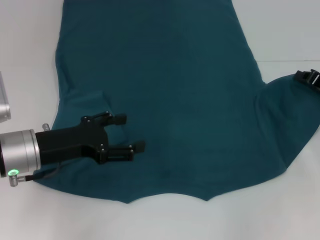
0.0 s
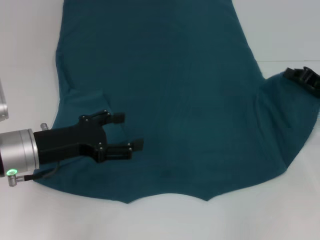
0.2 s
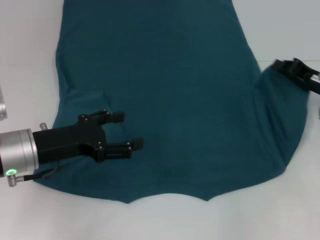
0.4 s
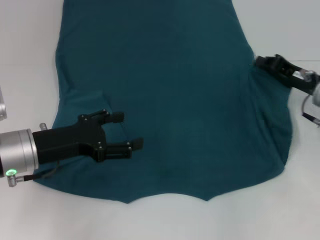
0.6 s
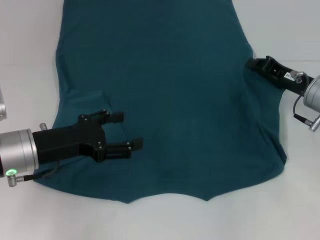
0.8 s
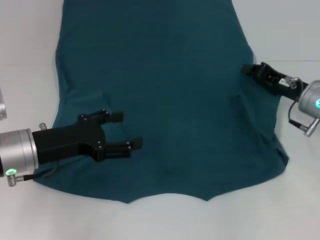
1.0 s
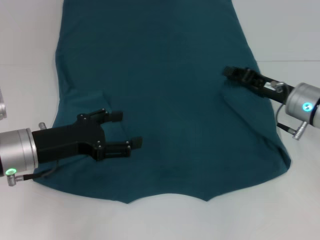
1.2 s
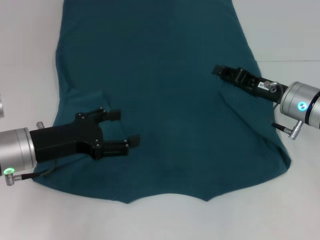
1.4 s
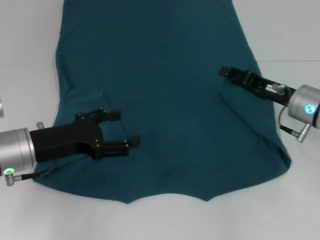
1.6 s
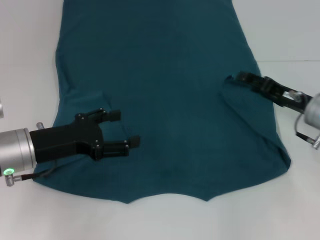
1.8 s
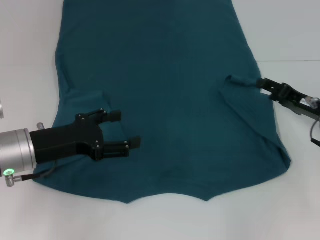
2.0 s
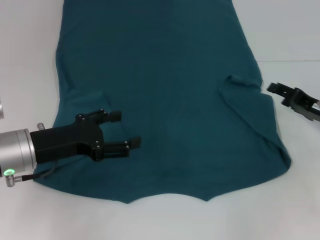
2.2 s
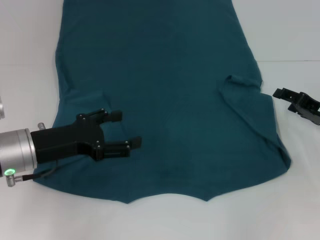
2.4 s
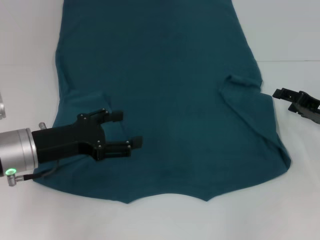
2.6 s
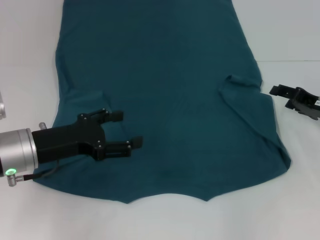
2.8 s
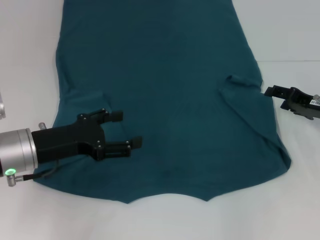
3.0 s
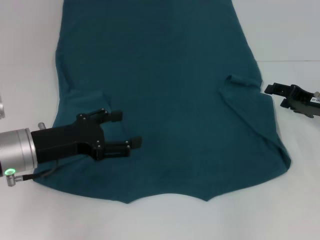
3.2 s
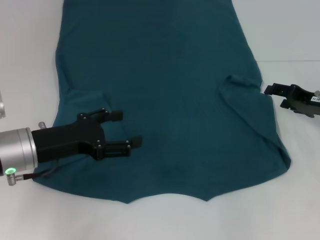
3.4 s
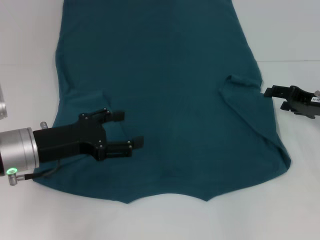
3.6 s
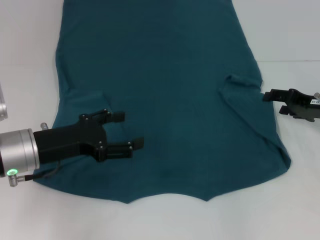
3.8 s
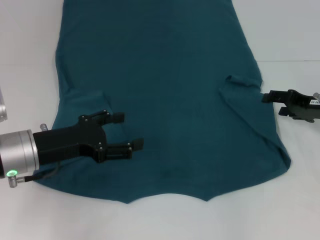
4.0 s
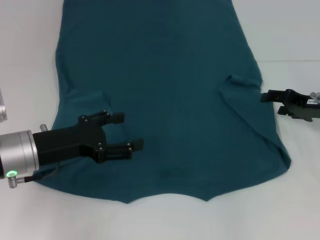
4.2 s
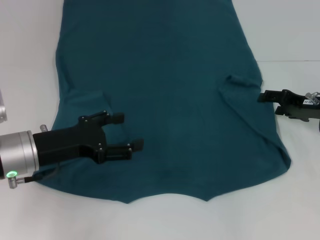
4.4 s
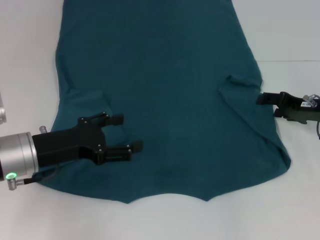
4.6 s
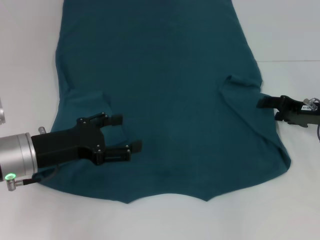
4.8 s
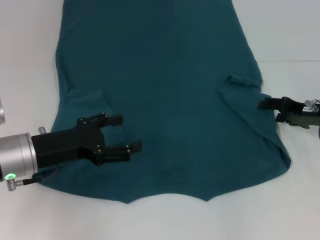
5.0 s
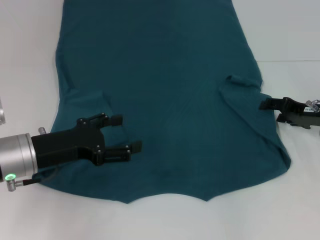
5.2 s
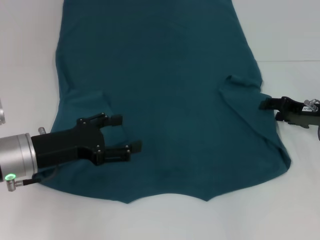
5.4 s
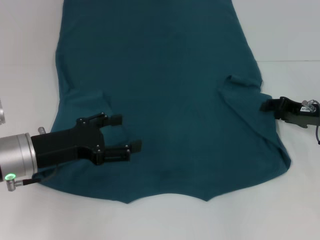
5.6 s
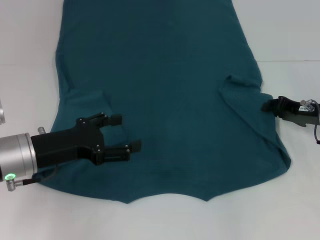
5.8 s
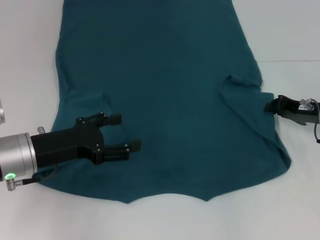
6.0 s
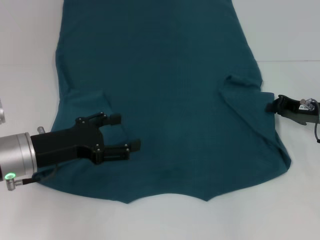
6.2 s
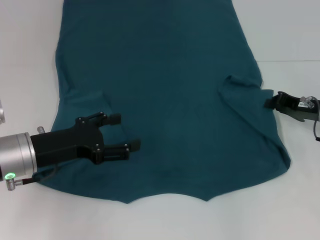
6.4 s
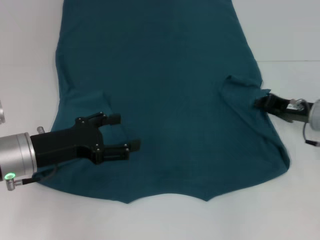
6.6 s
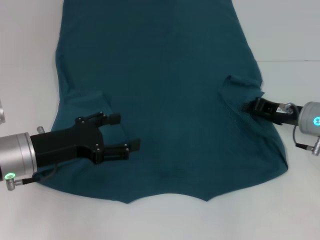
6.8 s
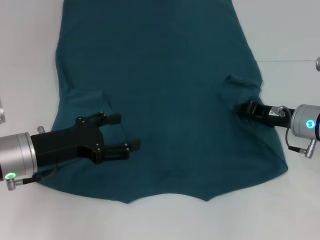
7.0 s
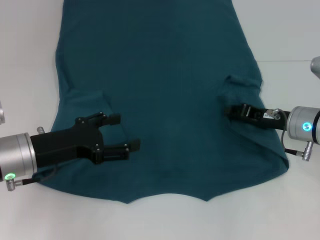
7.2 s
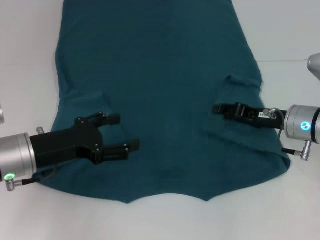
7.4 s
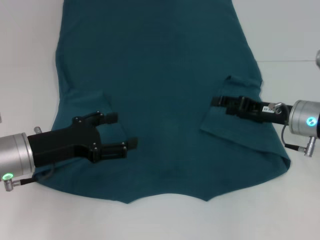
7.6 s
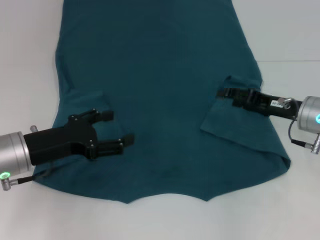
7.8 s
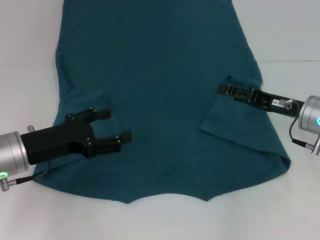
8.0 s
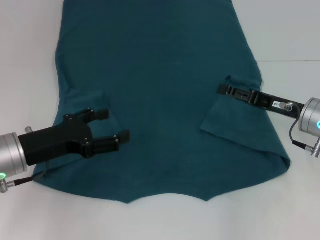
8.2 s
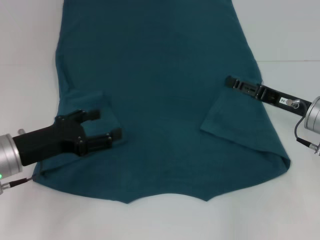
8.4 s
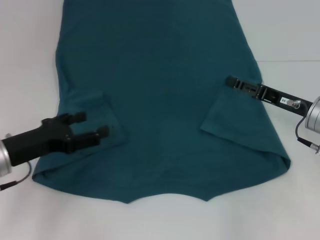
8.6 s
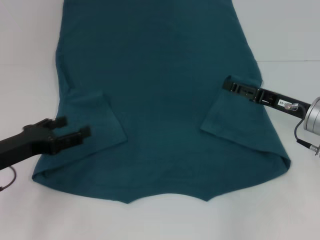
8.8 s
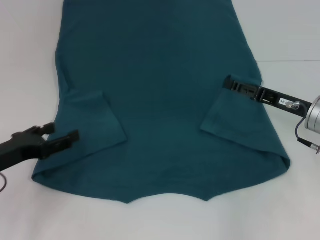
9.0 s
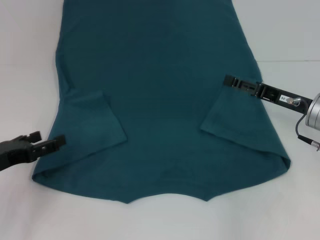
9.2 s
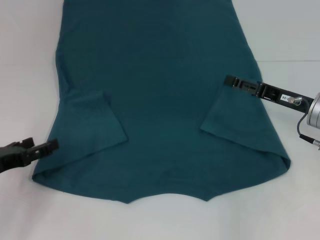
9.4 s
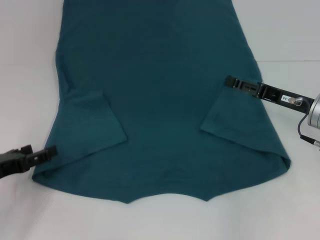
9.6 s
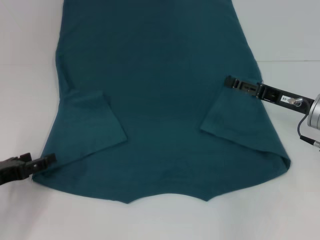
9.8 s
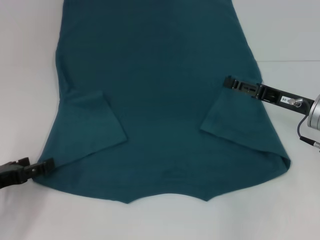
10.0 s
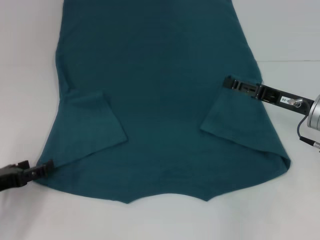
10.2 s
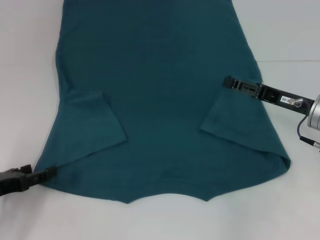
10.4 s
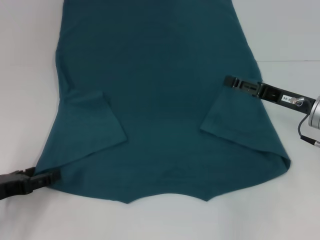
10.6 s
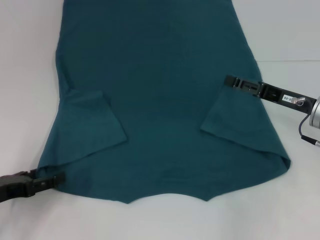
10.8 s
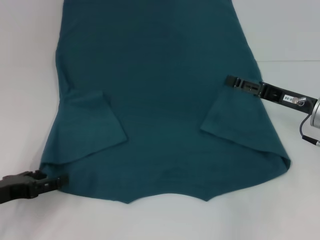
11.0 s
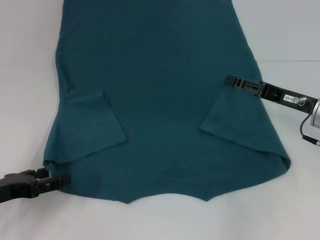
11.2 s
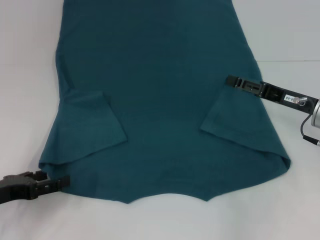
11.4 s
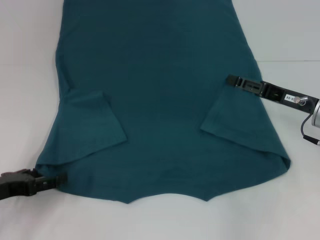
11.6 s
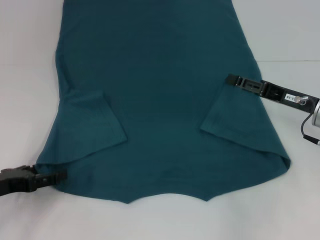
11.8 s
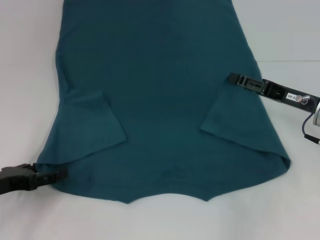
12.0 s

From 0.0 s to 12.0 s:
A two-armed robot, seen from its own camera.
Step, from 0.0 s to 8.0 s: Fold the bottom right sleeve to the right.
From 0.0 s to 1.6 s: The right gripper goes about 10 cm to the left, and opens up.
From 1.6 s to 3.0 s: The right gripper heads to the right, covering approximately 5 cm, and opens up.
From 3.0 s to 4.4 s: The grippers move only a little.
From 4.4 s to 6.0 s: The right gripper closes.
From 6.0 s to 7.6 s: The right gripper travels to the left by approximately 5 cm.
From 7.6 s to 9.0 s: The left gripper goes roughly 5 cm to the left. Meanwhile the right gripper opens.
From 9.0 s to 12.0 s: The grippers move only a little.

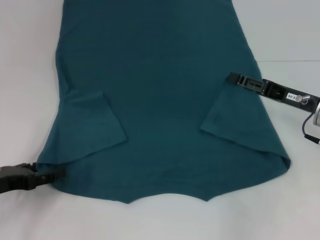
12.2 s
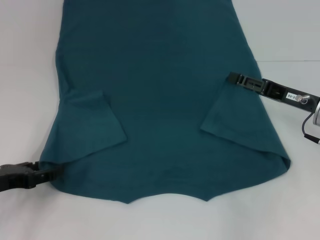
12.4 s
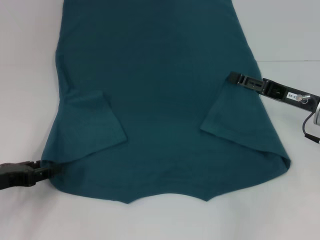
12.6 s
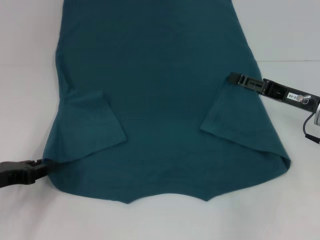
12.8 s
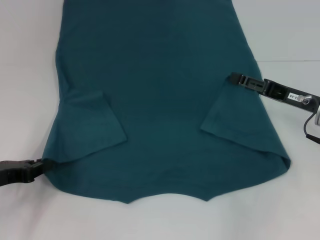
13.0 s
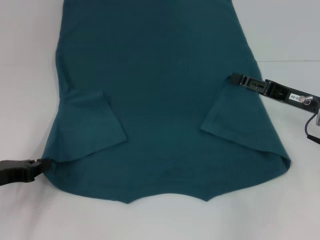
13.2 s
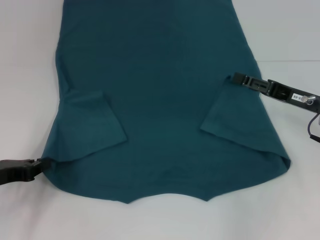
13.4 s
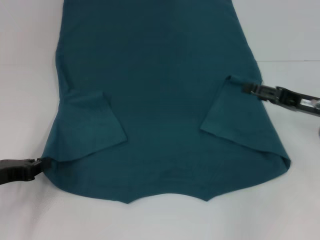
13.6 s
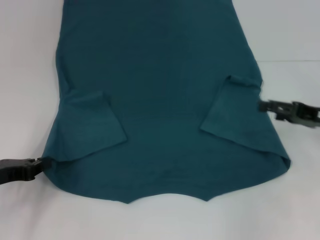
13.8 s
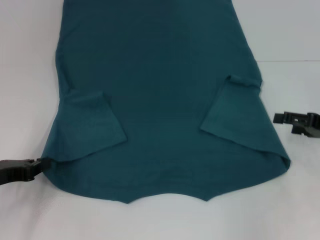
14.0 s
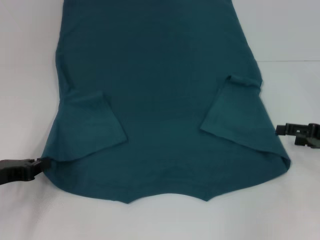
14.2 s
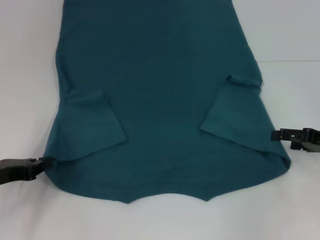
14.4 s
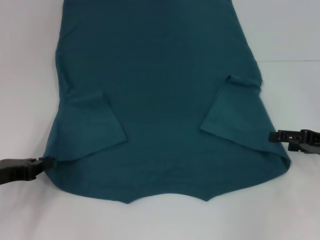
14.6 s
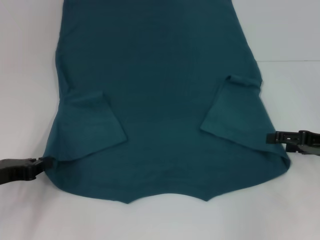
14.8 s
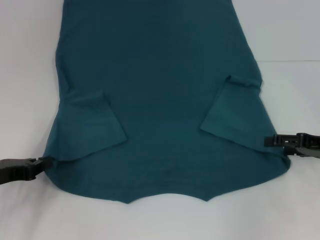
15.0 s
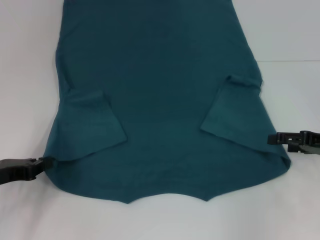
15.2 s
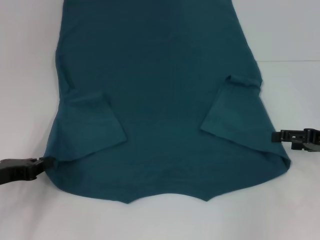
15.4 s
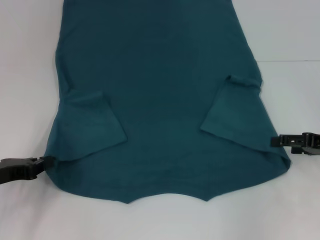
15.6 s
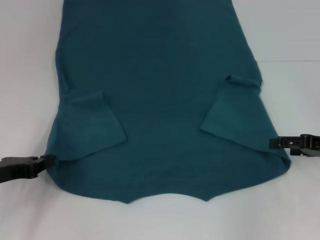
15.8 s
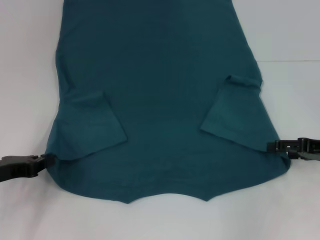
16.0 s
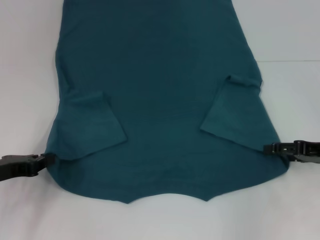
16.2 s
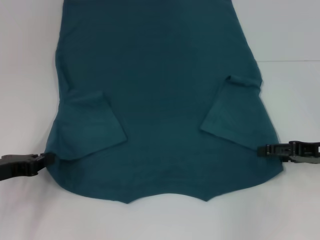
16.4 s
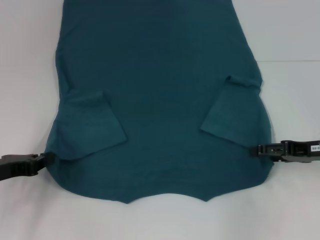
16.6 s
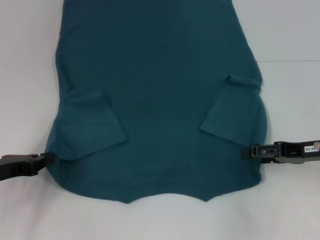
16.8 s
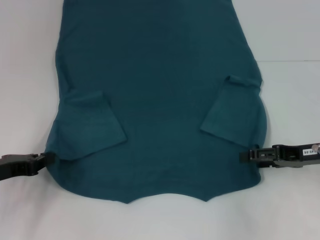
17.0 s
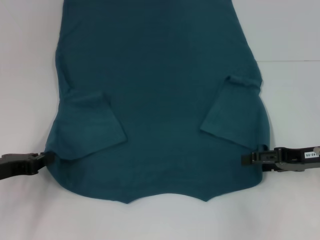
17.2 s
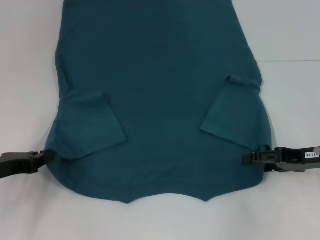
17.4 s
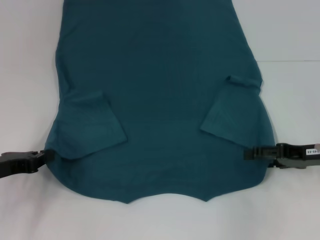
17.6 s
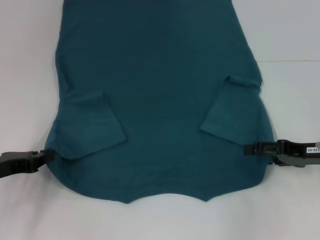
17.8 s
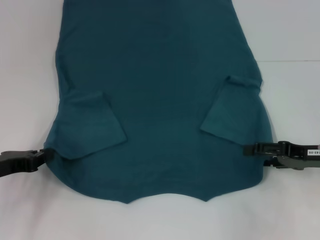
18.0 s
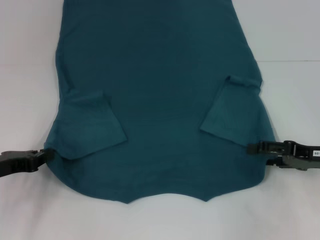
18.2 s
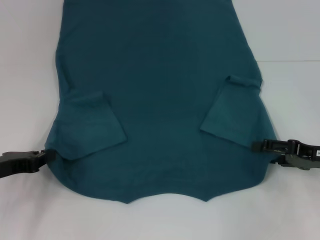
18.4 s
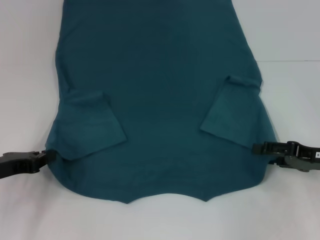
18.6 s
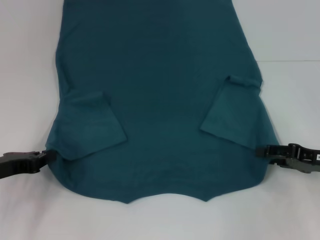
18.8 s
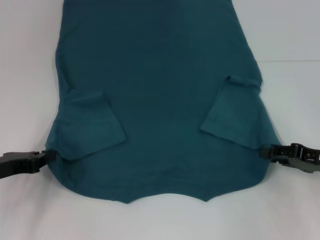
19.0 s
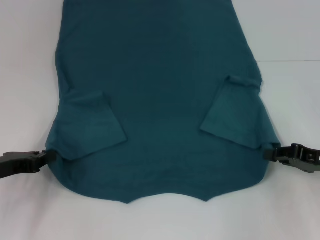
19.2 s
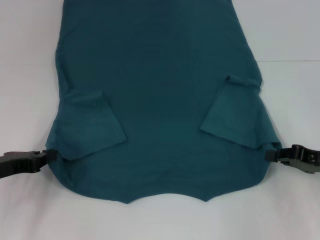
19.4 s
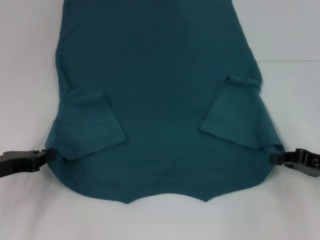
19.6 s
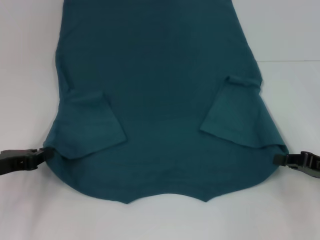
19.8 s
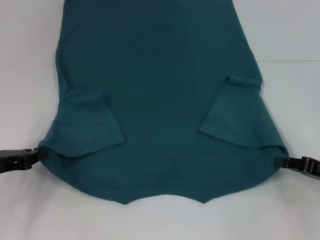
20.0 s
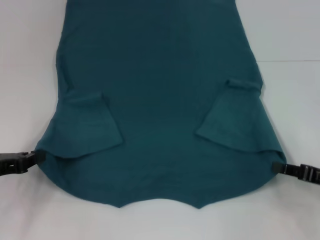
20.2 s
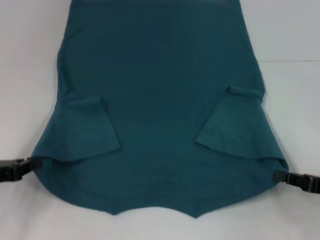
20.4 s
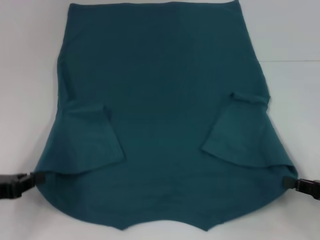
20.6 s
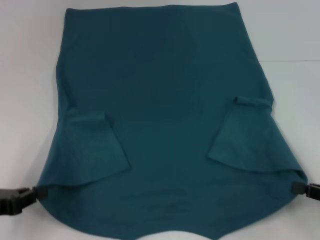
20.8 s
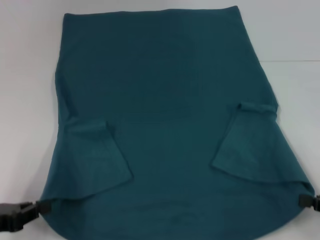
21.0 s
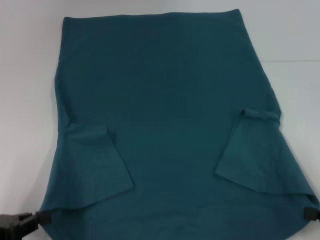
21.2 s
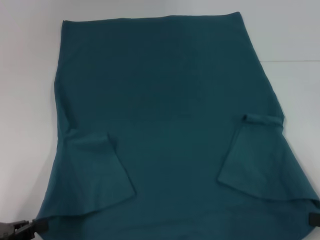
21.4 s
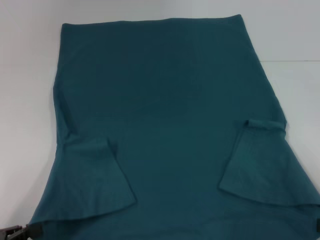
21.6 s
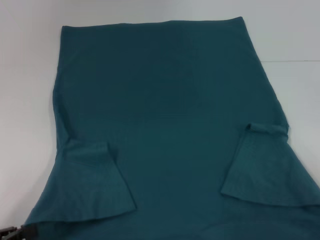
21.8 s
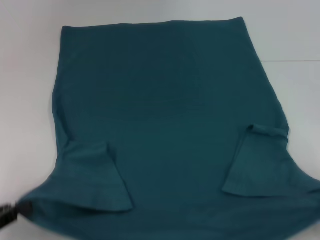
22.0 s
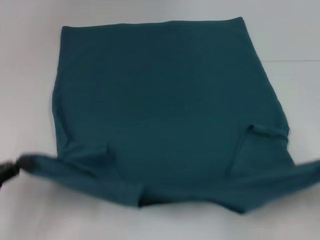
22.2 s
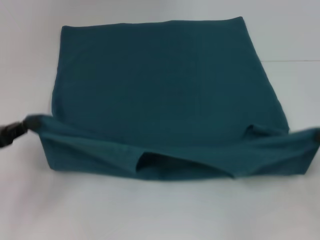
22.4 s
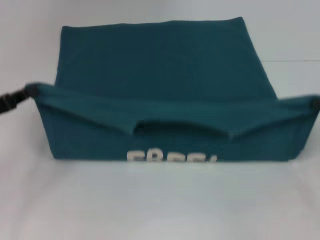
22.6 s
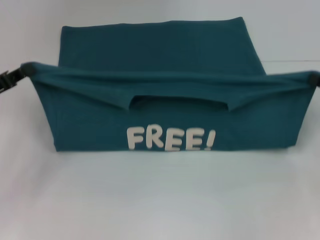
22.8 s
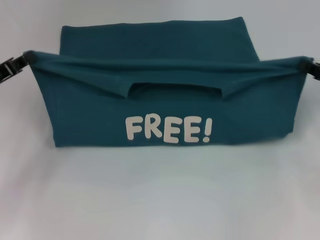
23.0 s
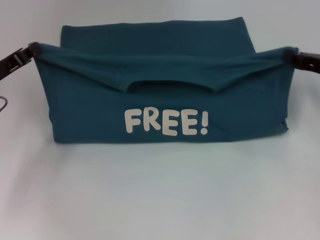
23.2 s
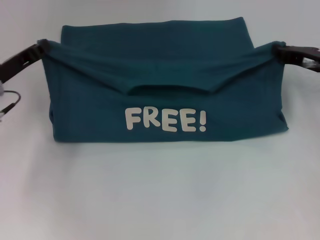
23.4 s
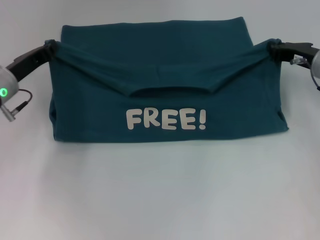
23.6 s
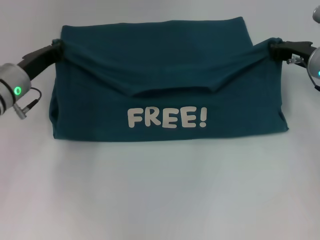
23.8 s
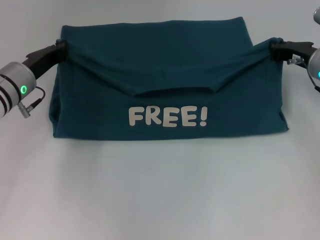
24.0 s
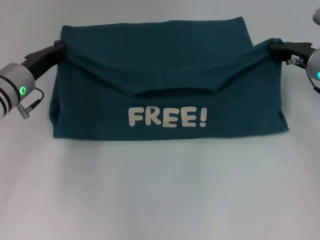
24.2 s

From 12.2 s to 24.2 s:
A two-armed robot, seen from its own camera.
Step, from 14.0 s to 19.8 s: Grab the bottom right corner with your right hand.
From 12.2 s to 13.8 s: The right gripper heads to the right, covering approximately 5 cm. Meanwhile the left gripper closes up.
From 13.8 s to 18.2 s: There are only small adjustments of the grippers.
From 18.2 s to 19.8 s: The right gripper closes its fingers.
From 19.8 s to 21.2 s: Both grippers move backward, some 10 cm.
From 21.2 s to 22.6 s: Both grippers move forward, approximately 10 cm.
From 22.6 s to 24.2 s: The left gripper goes about 15 cm forward and to the right. Meanwhile the right gripper heads forward and to the left, covering approximately 20 cm.
